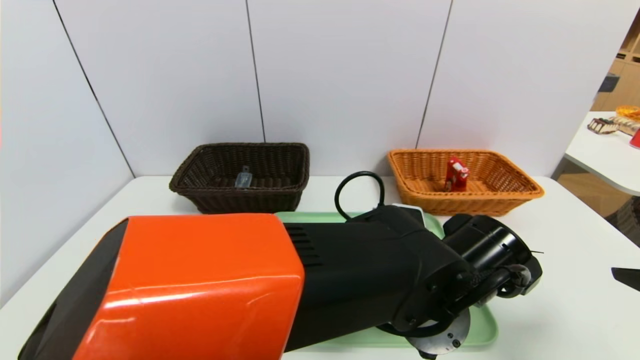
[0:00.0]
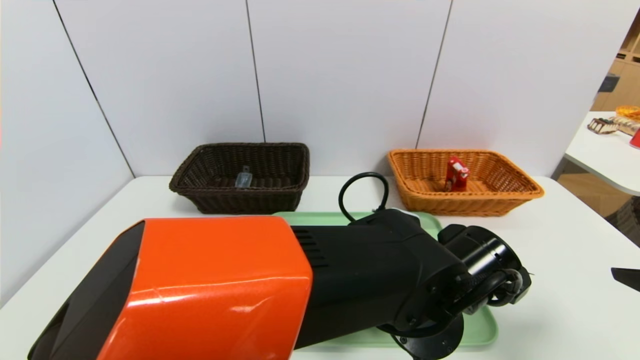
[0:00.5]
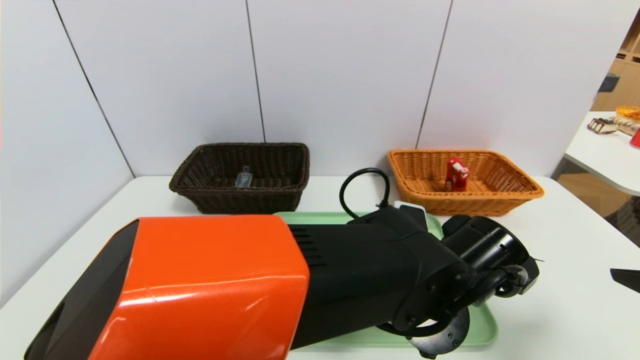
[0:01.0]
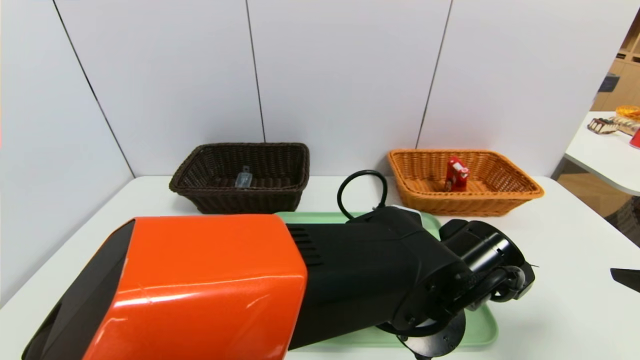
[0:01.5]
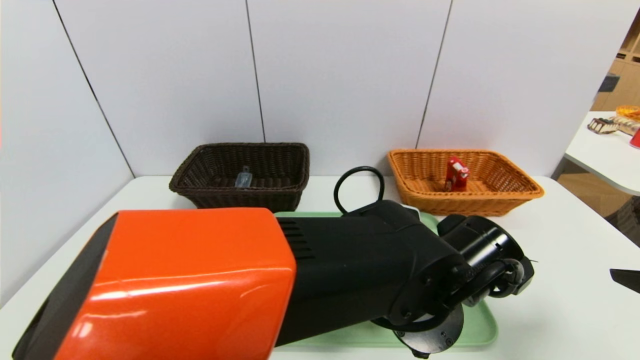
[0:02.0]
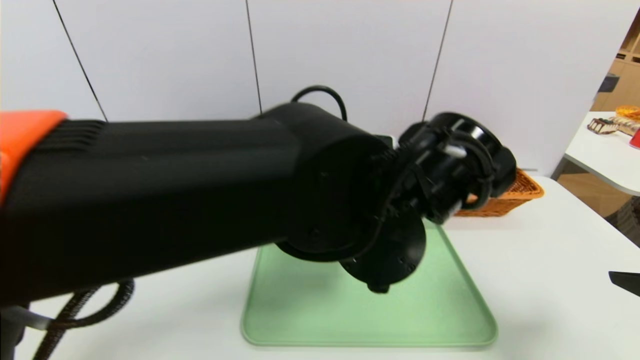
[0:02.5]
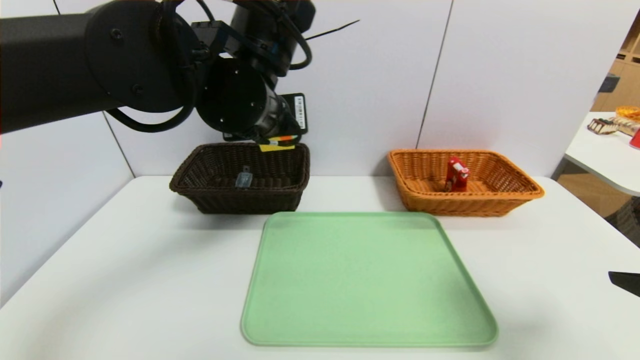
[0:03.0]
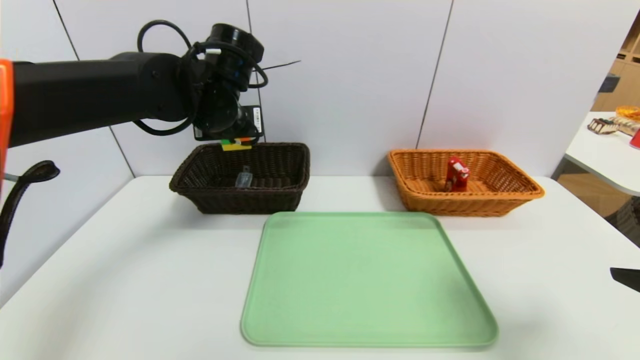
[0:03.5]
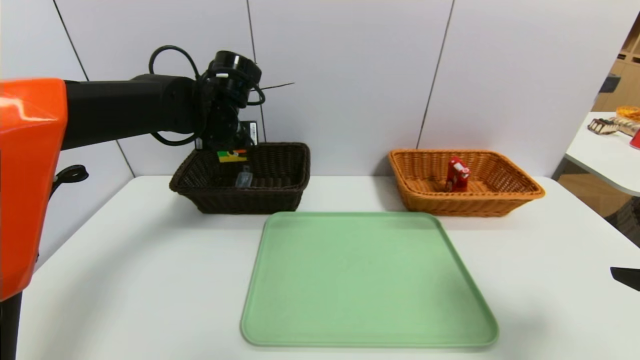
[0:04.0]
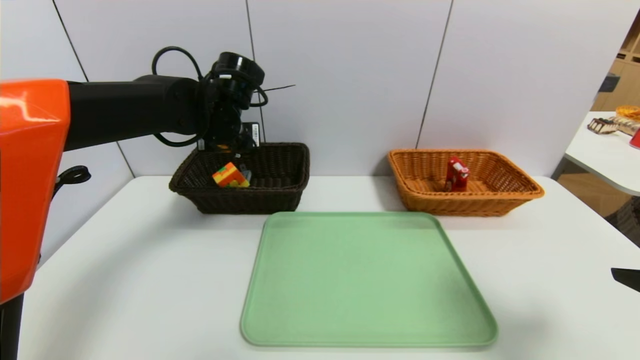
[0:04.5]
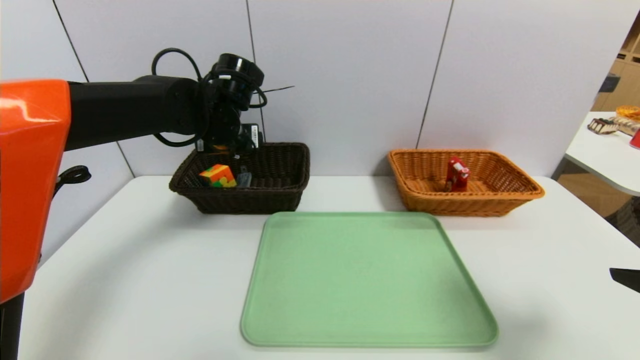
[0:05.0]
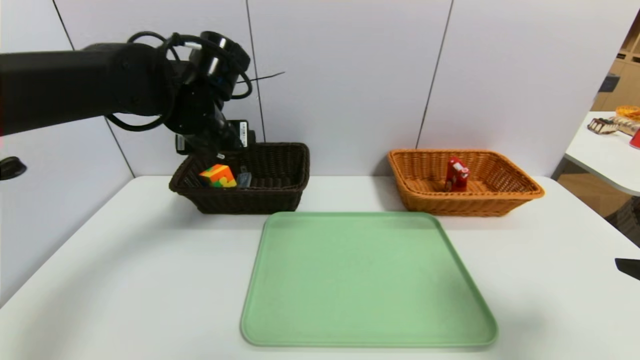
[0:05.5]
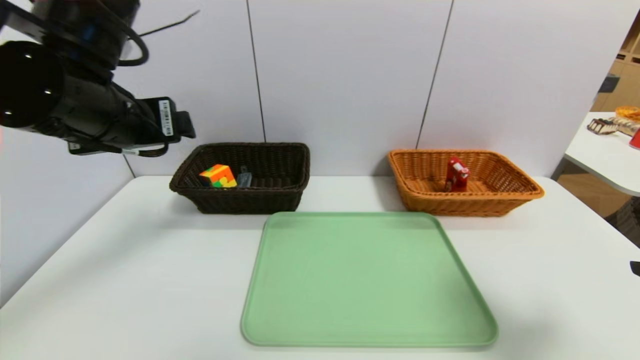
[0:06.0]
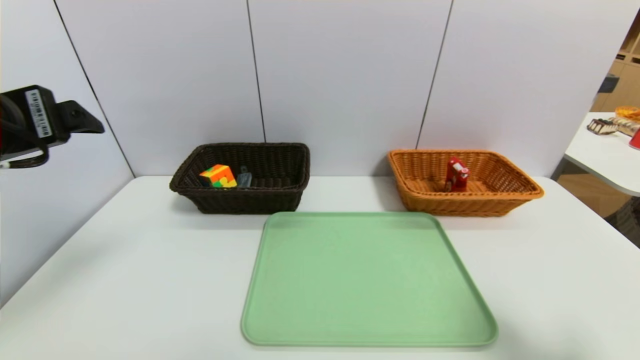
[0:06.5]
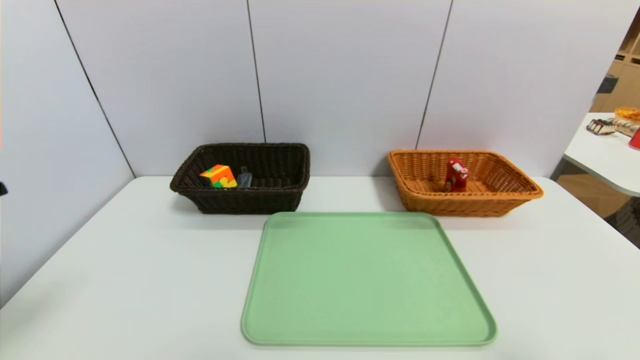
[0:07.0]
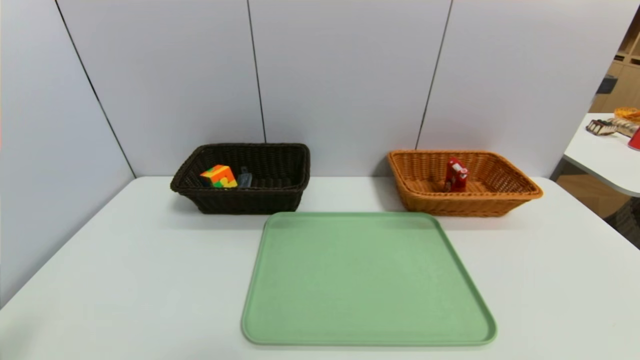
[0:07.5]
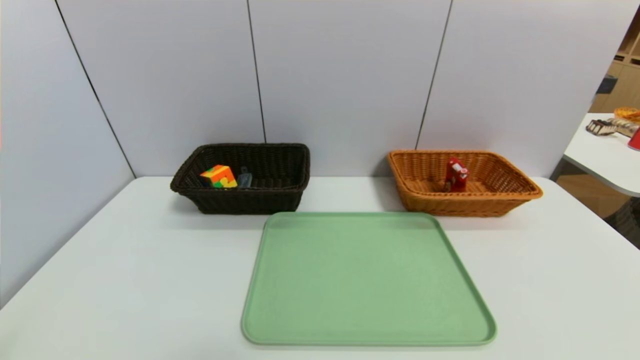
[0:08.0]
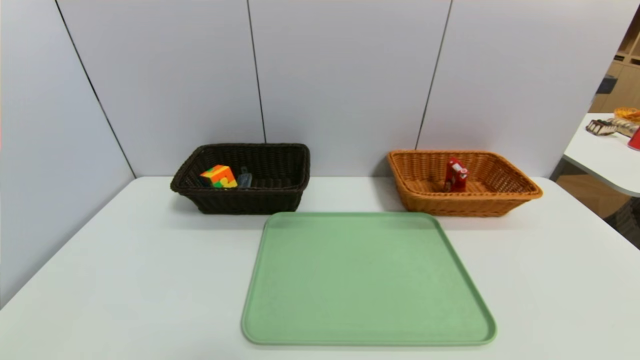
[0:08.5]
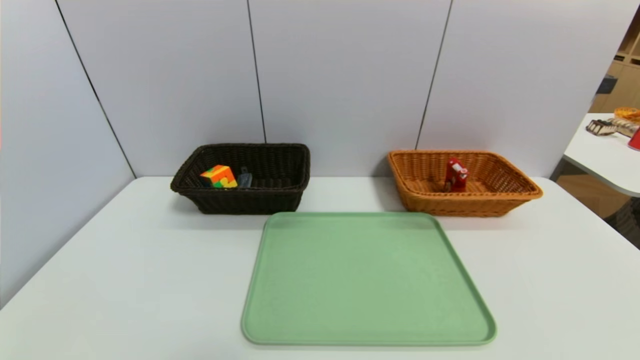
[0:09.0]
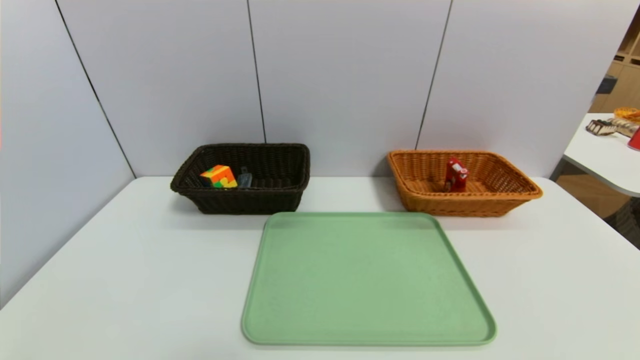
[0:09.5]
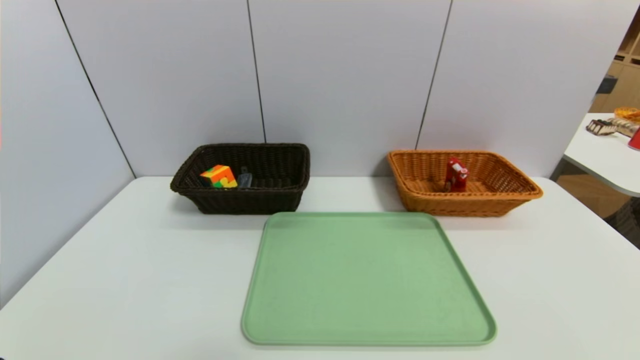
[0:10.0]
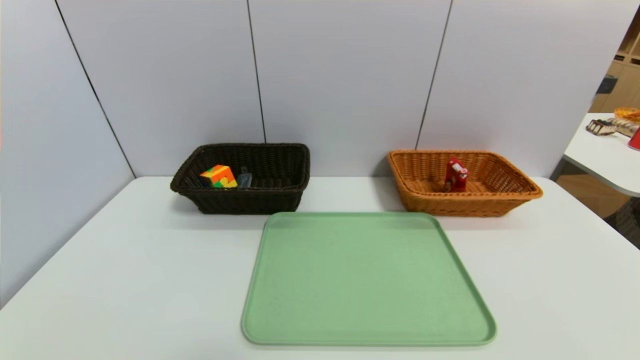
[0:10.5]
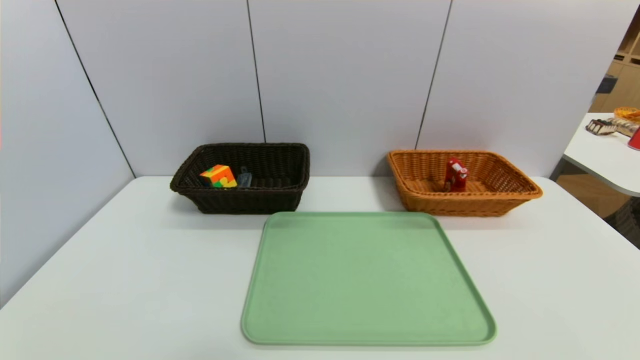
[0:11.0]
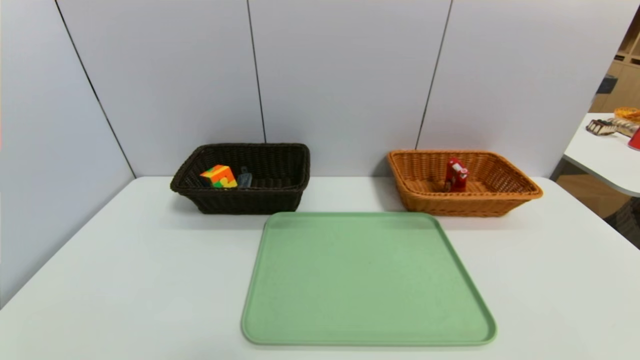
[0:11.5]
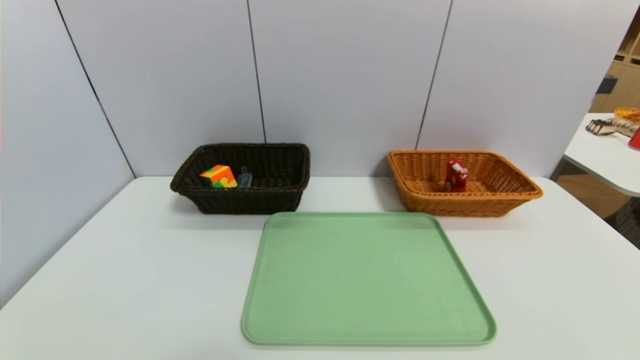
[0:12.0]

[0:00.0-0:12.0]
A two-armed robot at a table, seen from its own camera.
Task of the whole recording: place the food in the right basket with the right gripper, and place the non food items in the left basket with the left gripper.
Step, 0:00.0 to 0:04.5: Grasp the rubiks cube and put it in the left basket.
0:00.0 to 0:02.0: The left gripper closes up.
0:02.0 to 0:04.0: The left gripper is displaced to the left and forward by some 30 cm.
0:04.0 to 0:06.0: The left gripper travels backward, upward and to the left by some 20 cm, and opens.
0:06.0 to 0:08.0: The right gripper heads backward, covering some 15 cm. The left gripper moves backward and to the left, approximately 30 cm.

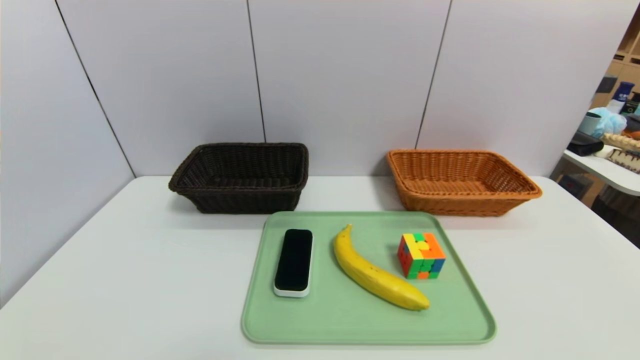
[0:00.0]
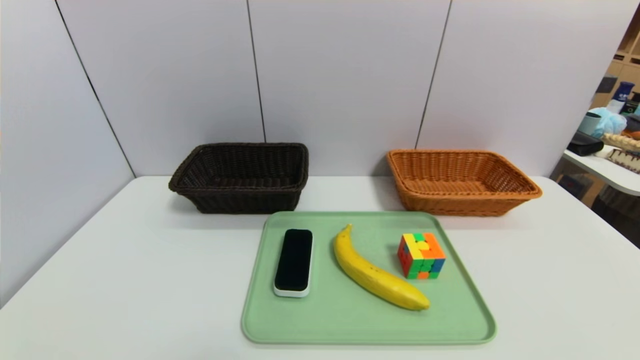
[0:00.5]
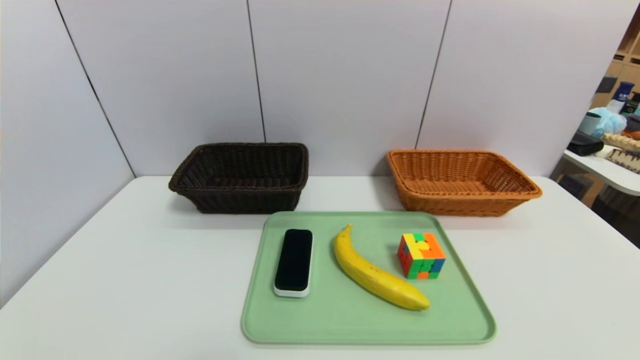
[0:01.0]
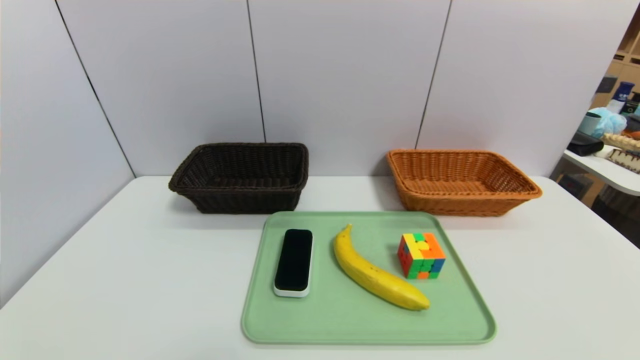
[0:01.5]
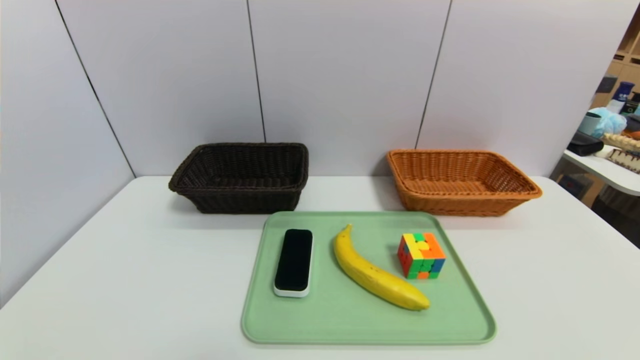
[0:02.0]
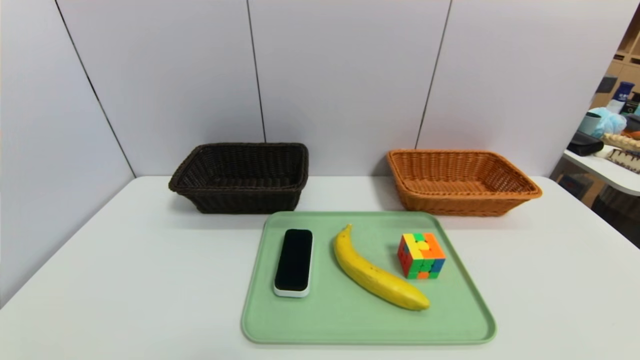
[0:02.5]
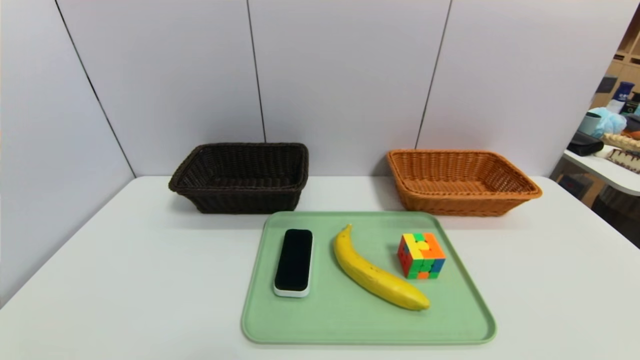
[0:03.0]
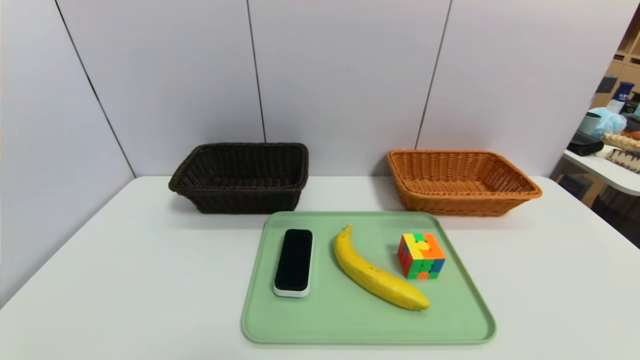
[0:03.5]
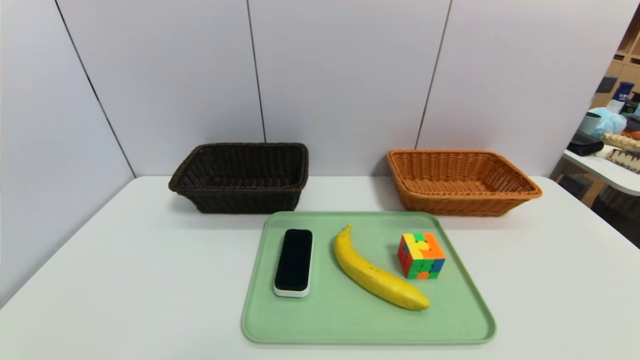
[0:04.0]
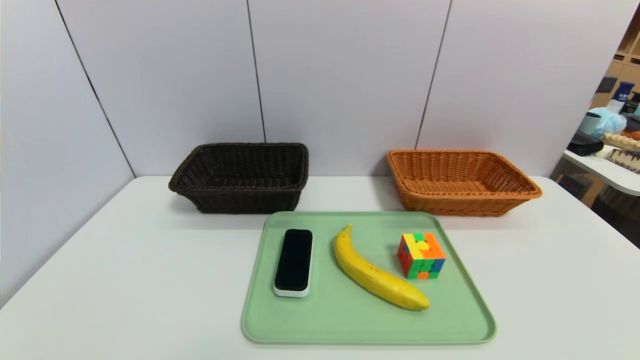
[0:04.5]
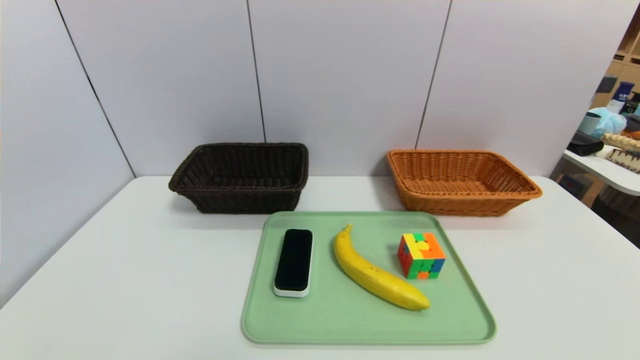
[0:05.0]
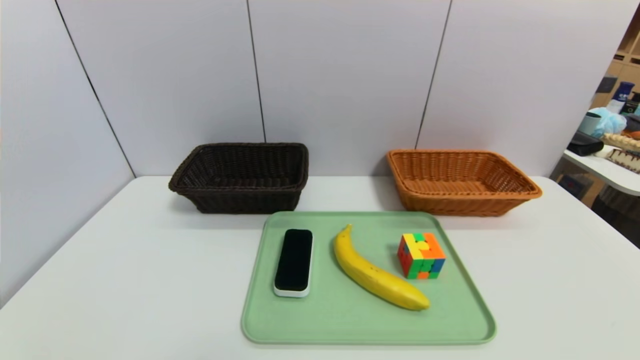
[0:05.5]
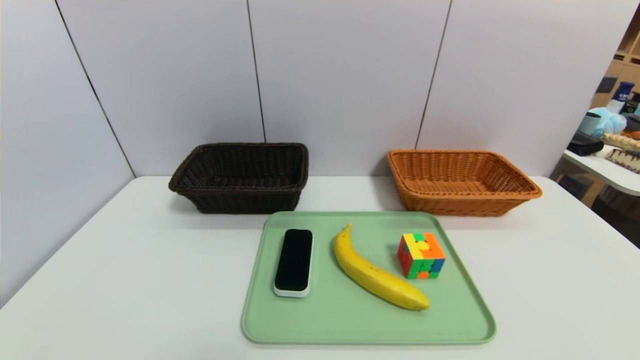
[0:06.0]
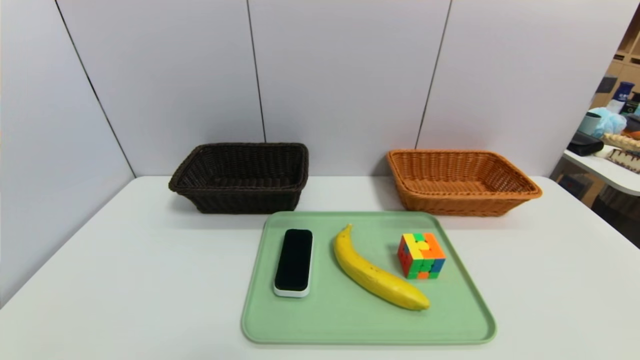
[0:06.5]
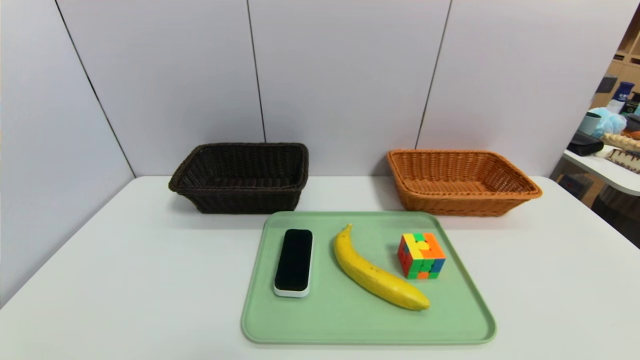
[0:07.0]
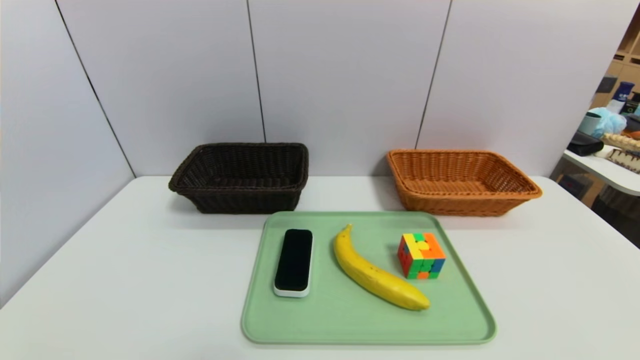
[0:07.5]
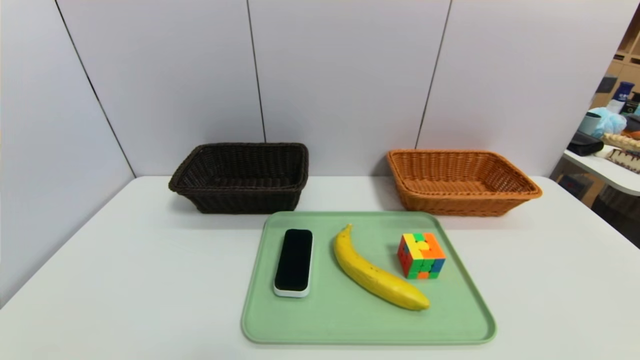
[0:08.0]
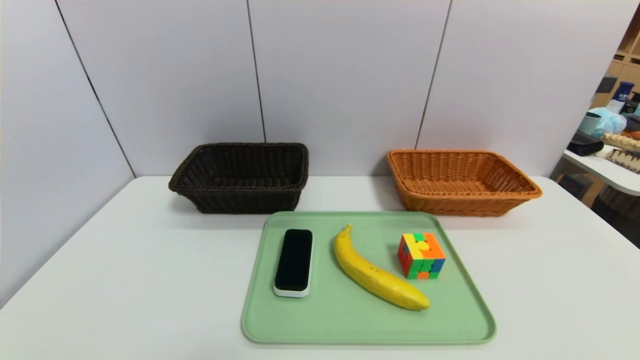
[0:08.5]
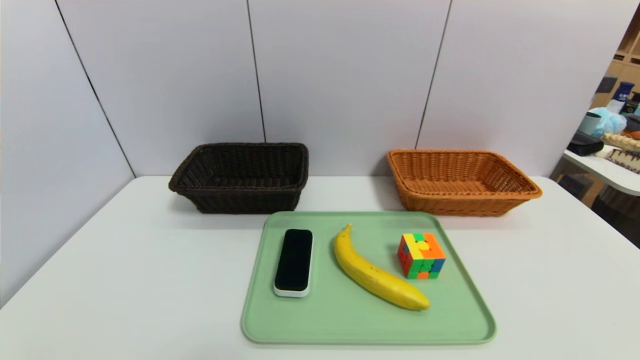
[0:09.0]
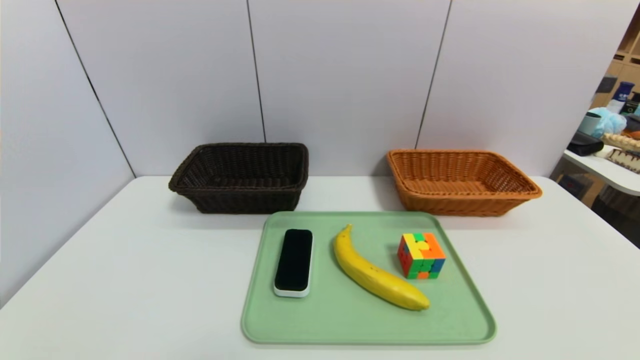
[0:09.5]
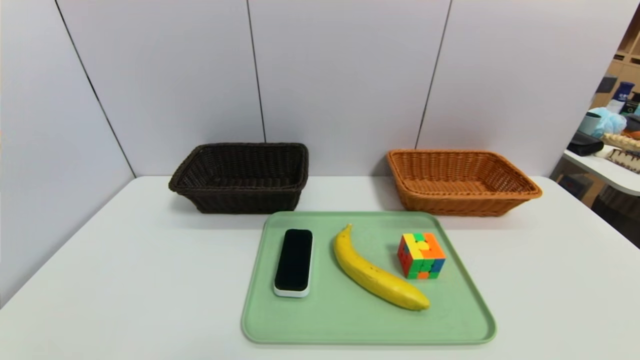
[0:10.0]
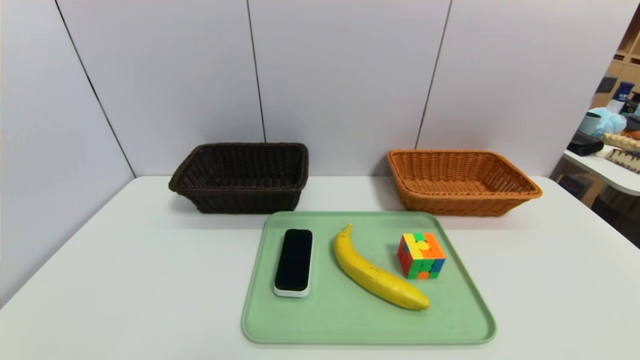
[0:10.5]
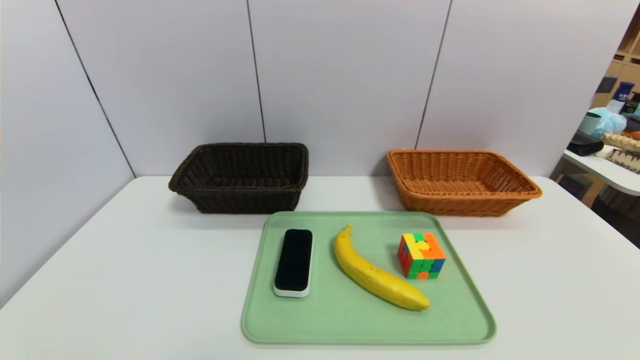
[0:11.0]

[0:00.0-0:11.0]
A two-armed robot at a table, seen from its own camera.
Task of the whole recording: place the food in the right basket with the right gripper, and place the non food items in the left basket with the left gripper.
0:00.0 to 0:11.0: Neither gripper changes place.
